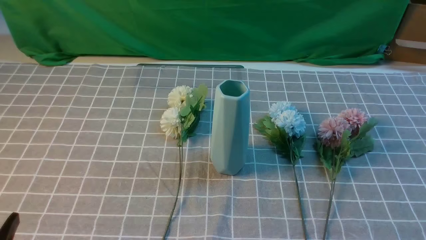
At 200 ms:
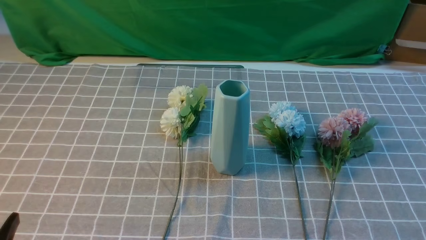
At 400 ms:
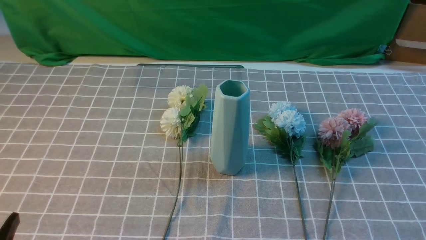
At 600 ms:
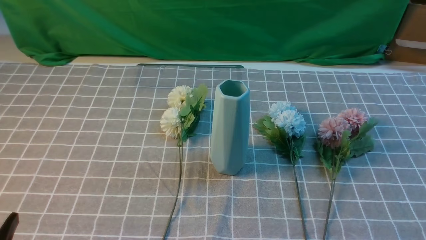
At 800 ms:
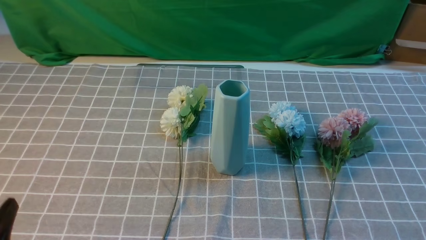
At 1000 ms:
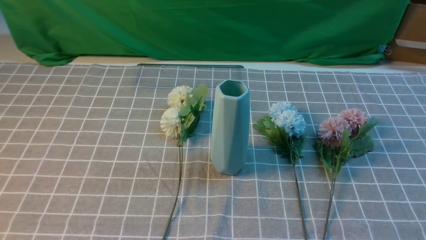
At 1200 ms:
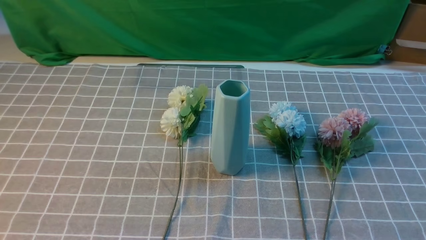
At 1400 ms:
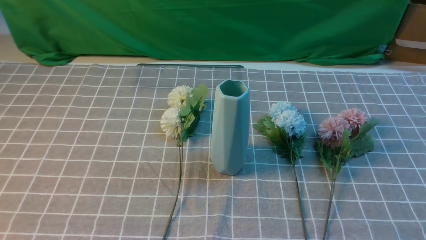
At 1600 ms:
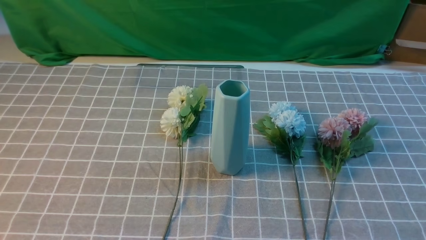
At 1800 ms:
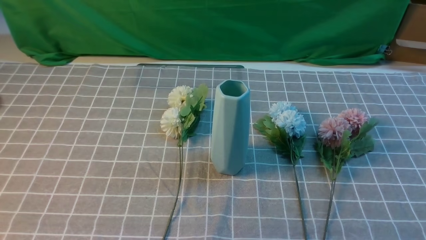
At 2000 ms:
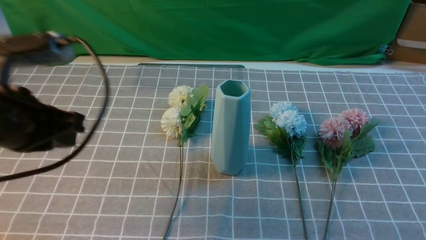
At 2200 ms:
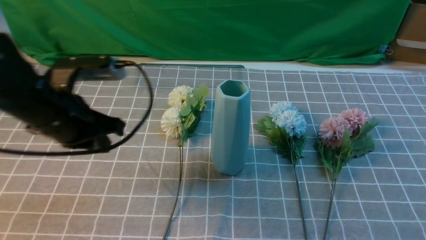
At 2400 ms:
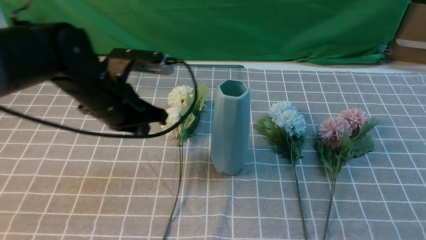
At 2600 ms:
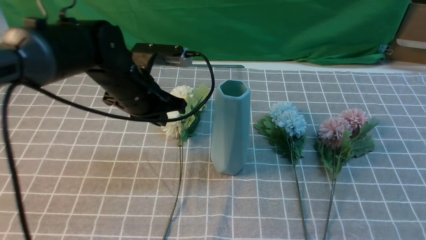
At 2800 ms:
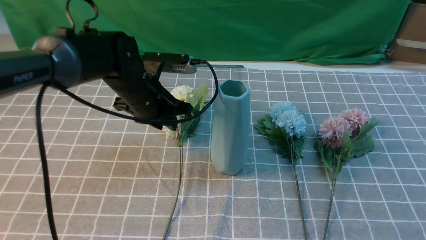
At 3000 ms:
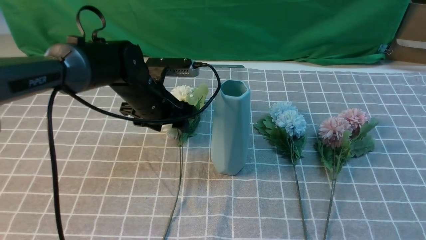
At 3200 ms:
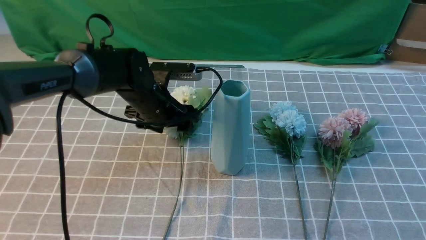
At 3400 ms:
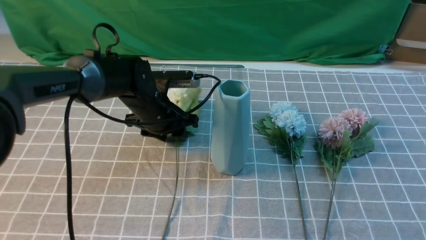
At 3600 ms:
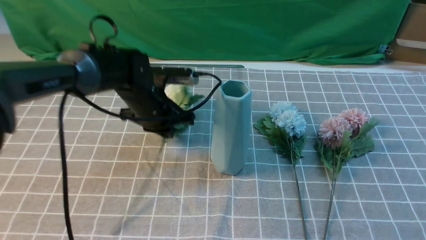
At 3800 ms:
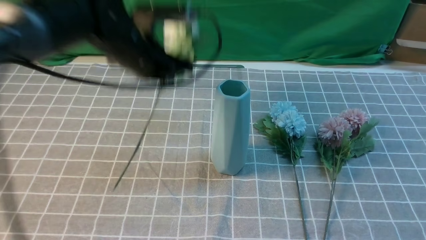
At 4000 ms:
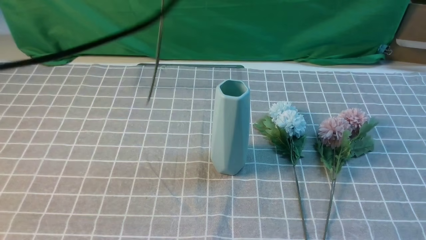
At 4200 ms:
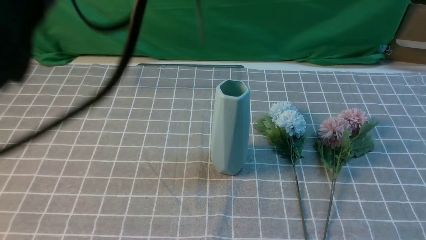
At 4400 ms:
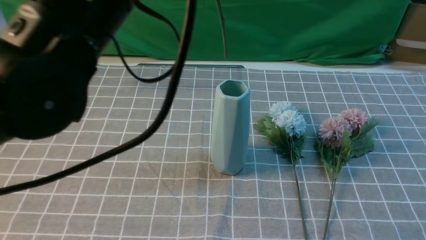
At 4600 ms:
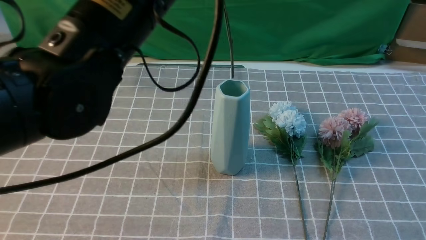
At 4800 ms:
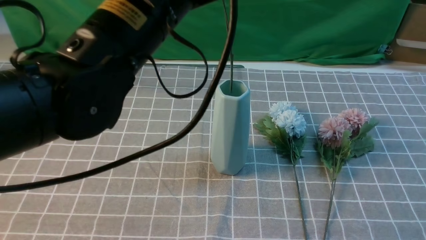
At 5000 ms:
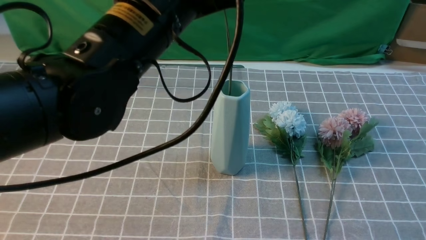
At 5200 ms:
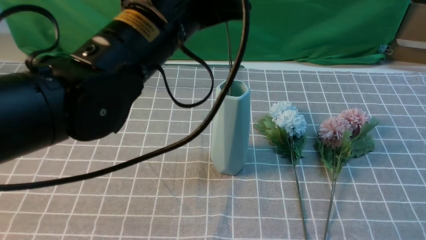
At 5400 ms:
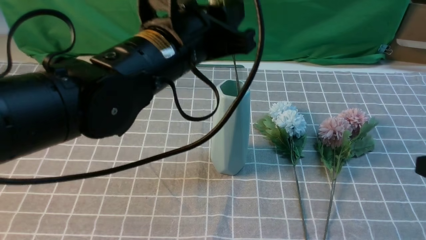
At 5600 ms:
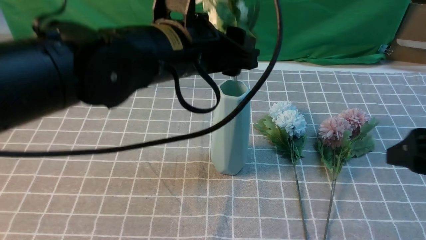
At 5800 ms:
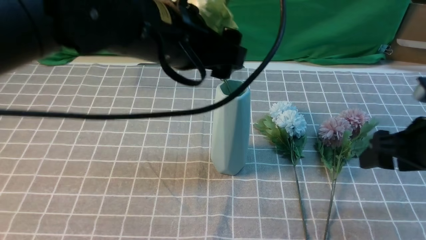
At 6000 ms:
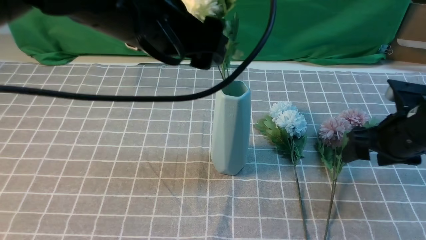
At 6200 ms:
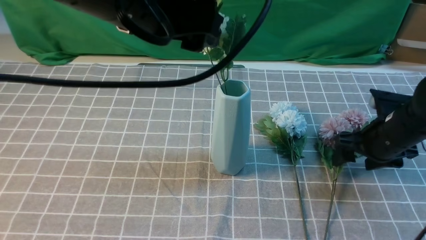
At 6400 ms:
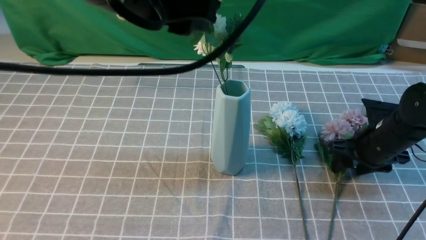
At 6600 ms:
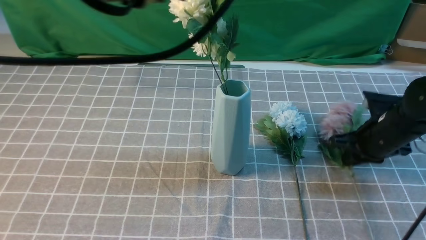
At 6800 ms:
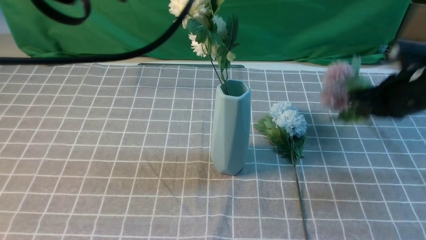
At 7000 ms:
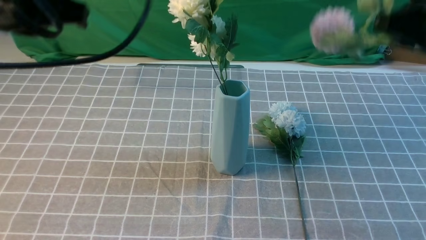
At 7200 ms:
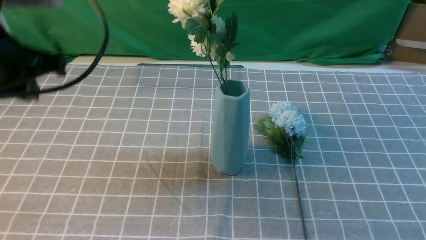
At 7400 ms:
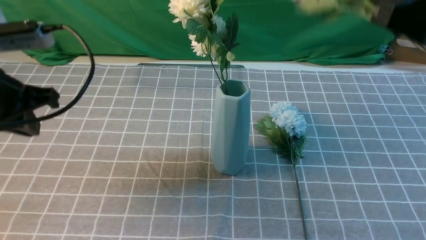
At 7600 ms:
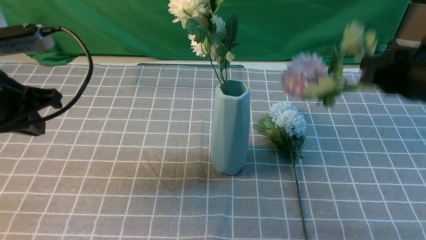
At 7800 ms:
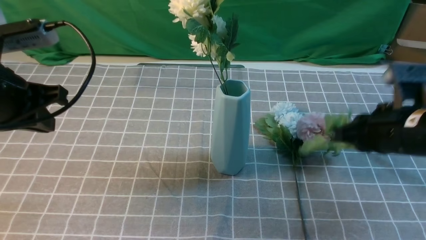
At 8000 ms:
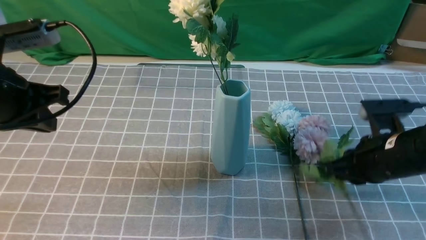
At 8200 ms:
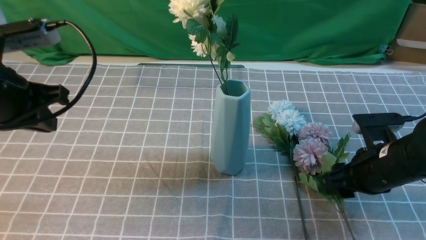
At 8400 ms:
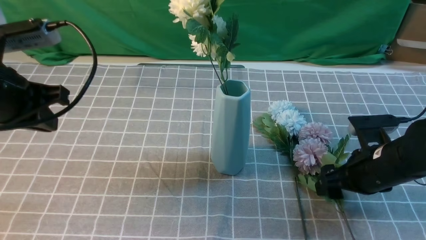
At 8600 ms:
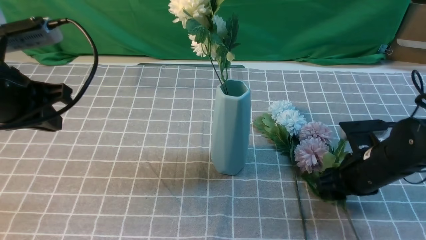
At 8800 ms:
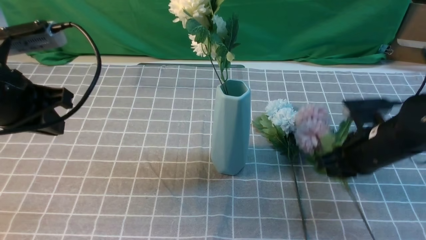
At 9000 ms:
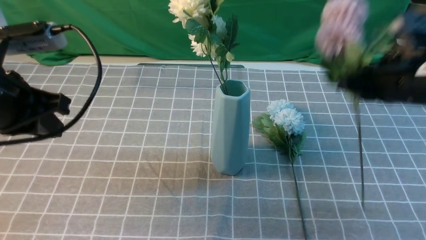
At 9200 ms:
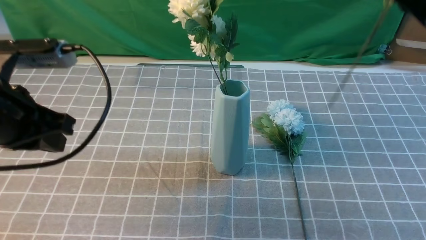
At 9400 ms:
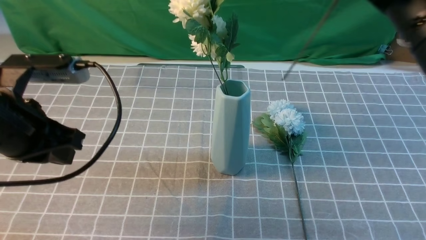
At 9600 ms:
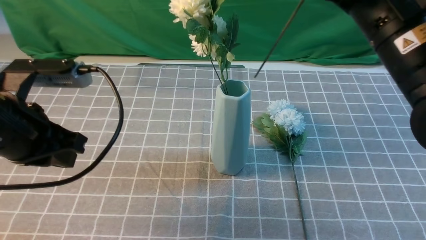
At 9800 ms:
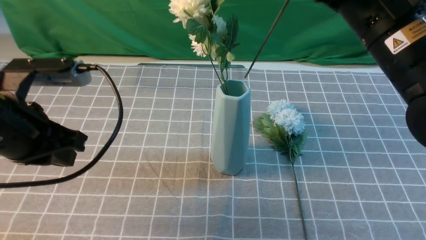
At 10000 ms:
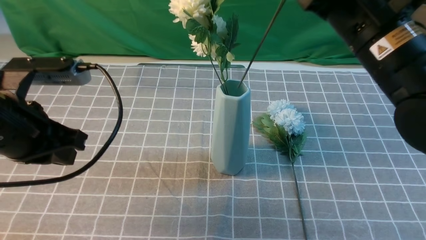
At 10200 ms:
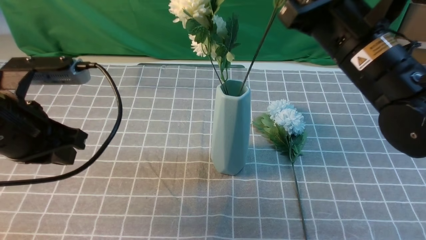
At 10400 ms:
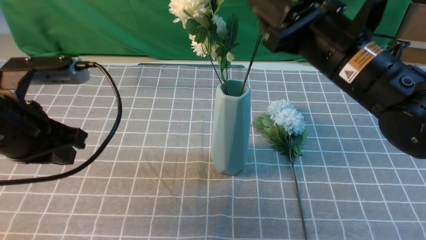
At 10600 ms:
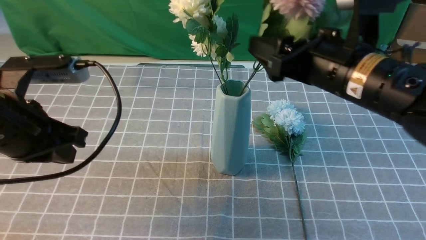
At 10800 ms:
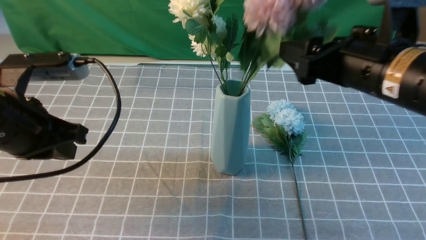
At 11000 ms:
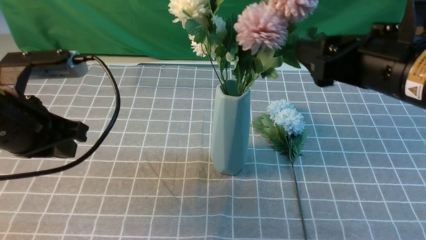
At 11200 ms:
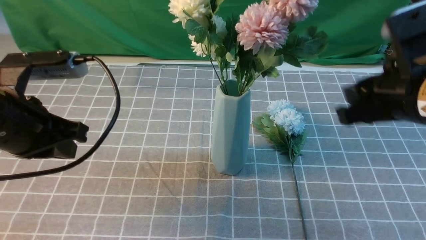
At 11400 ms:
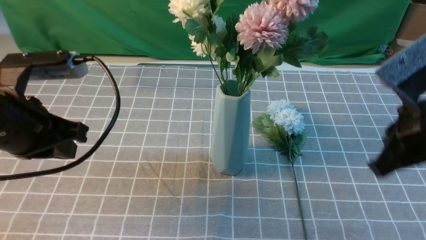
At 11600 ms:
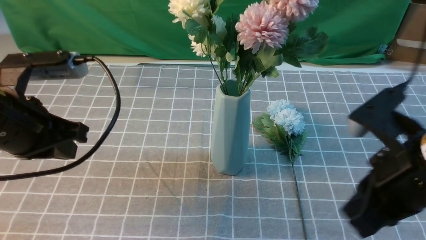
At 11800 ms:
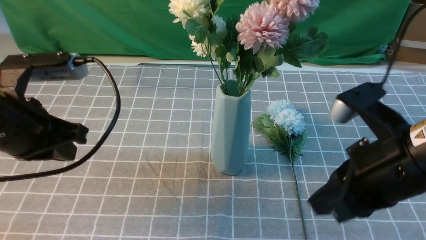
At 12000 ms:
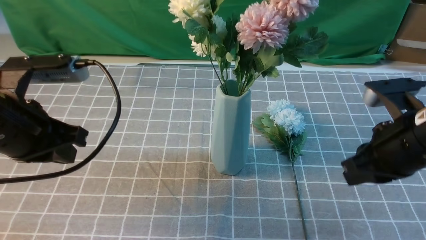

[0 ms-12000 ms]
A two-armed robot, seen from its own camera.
Task of the whole recording: insert the flowers into the vase on the table with the grey tablecloth.
Step, 0 ms to 3400 ms: use the left arm to grab a bunch of fresh flowers.
Step, 3600 ms to 5800 ms: use the left arm to insert the flowers into the vase.
Step, 6000 ms to 8600 ms: use the right arm to grab a bunch of fresh flowers.
Step, 8800 ms to 10600 ms: use the right arm to insert the flowers into the vase.
1600 ms to 3000 ms: The right gripper heads upward and forward, covering some 10 cm, while the left gripper travels forward, downward and to the right by roughly 40 cm, and opens.
3000 ms to 4400 ms: The left gripper is displaced upward and backward by about 30 cm, and closes.
4400 ms to 6000 ms: The right gripper heads forward, covering about 20 cm, and opens its fingers. The left gripper opens its fingers.
6000 ms to 7600 ms: The right gripper moves up and down over some 25 cm, changing direction 2 times, and closes; the left gripper travels to the left and downward by approximately 20 cm, and closes up.
7600 ms to 9000 ms: The right gripper goes downward and returns, some 15 cm each way, and opens, then closes again.
9000 ms to 10400 ms: The right gripper goes about 10 cm to the left, and opens its fingers.
10400 ms to 12000 ms: The right gripper is displaced to the right and downward by roughly 10 cm, goes backward and returns, approximately 10 cm each way, and closes up.

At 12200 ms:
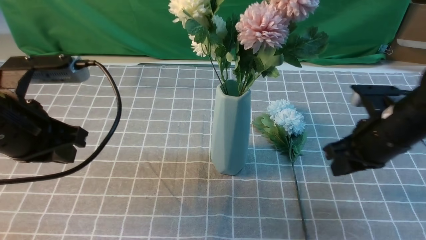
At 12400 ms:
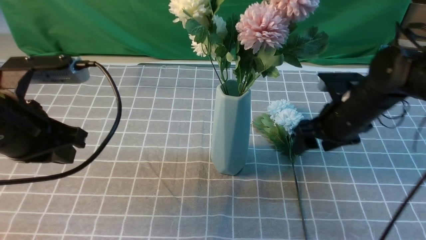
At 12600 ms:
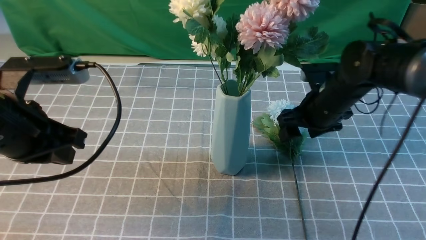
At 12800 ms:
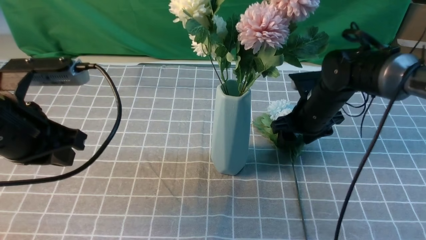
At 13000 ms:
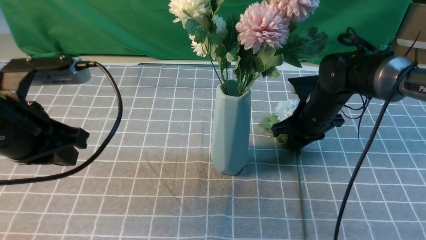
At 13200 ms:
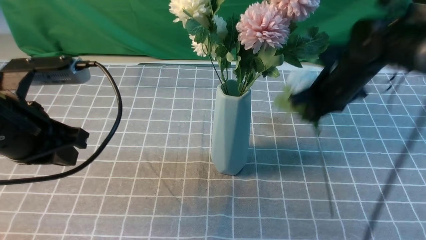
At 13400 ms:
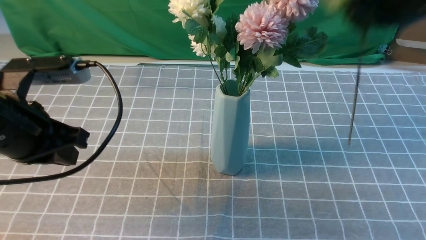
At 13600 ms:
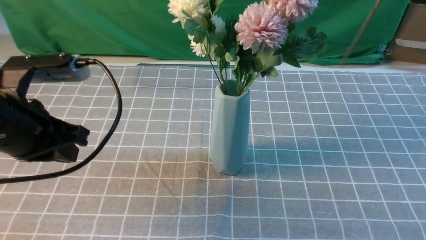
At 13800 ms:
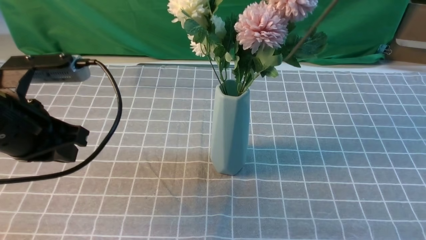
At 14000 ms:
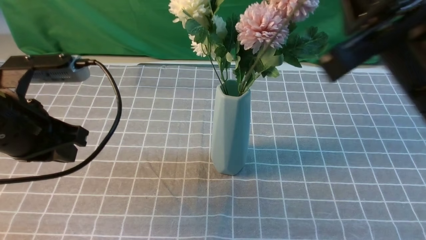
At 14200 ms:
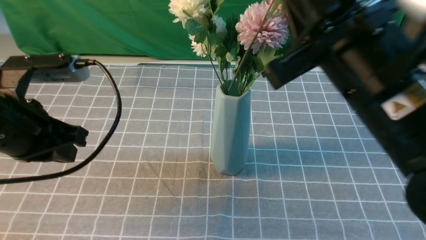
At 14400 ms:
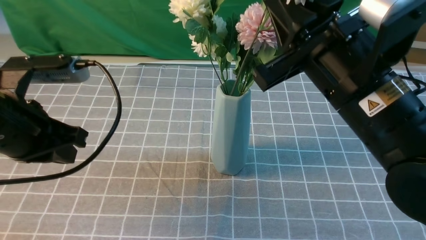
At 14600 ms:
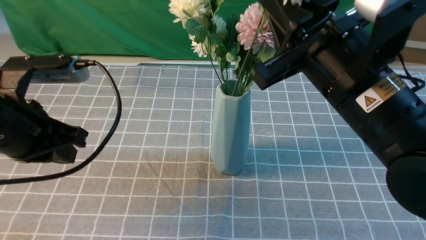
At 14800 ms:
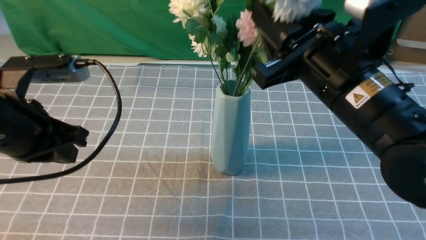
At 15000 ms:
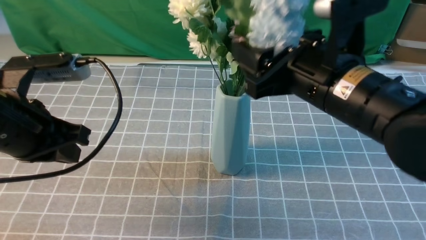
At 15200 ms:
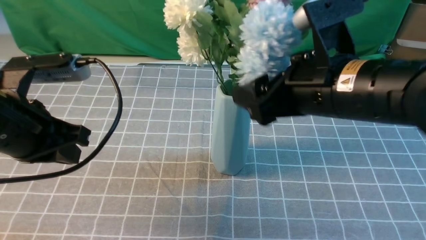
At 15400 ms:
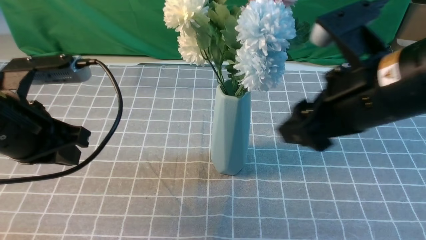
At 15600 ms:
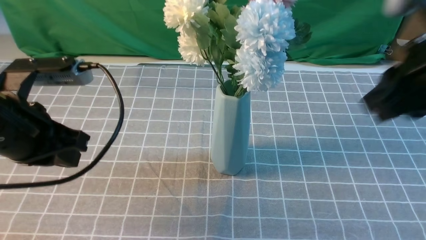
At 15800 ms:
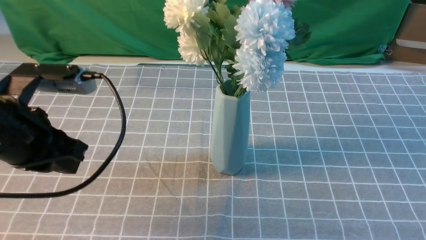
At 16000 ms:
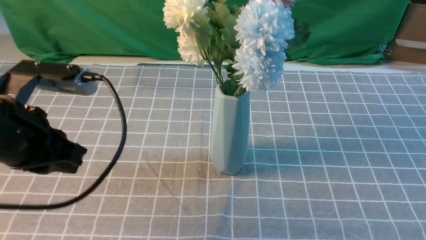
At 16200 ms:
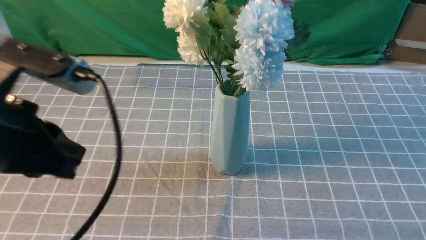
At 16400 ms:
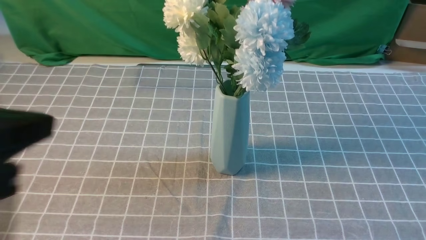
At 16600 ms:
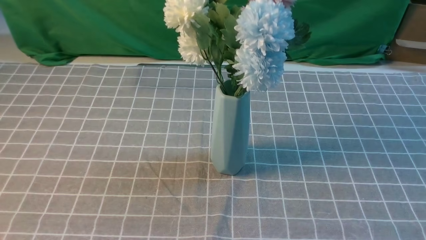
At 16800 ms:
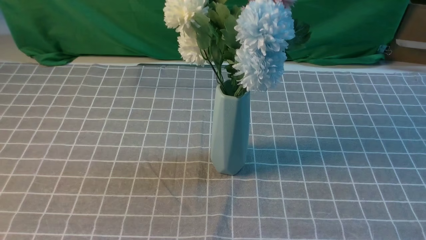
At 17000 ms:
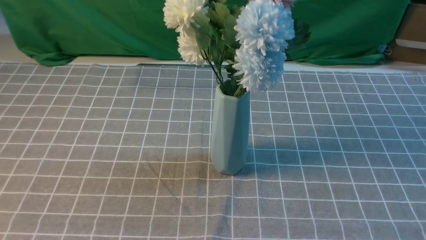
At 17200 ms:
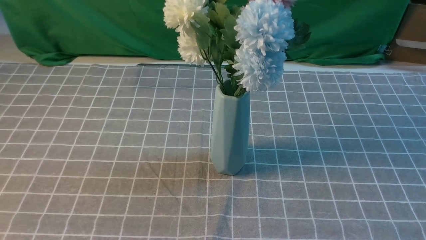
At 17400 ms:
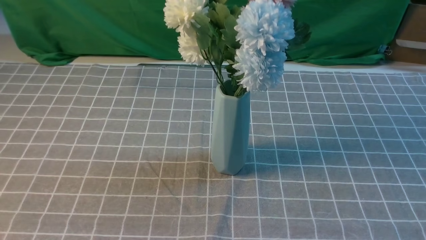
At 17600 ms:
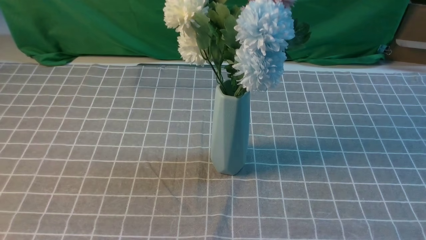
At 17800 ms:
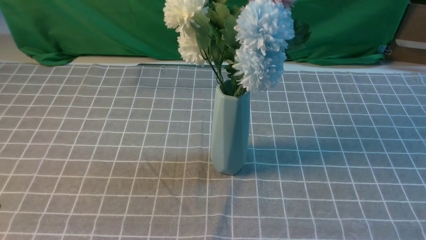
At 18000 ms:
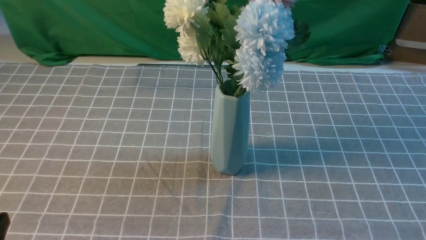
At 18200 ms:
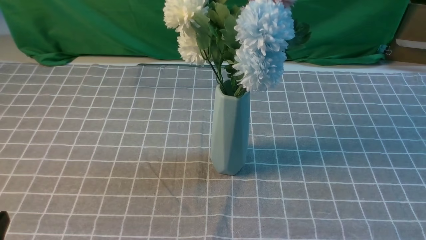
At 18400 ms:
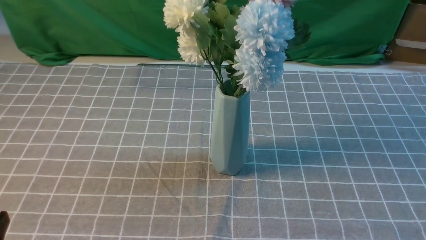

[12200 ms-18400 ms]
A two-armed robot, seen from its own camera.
Task of the whole recording: insert the flowers into the vase on the table with the grey tablecloth.
Step, 13200 ms to 15200 ms: use the right arm to insert the flowers into the vase.
12200 ms to 13800 ms: The right gripper moves upward and backward, approximately 25 cm, and opens and closes again.
13800 ms to 15400 ms: The right gripper is displaced downward by approximately 5 cm, and opens up.
15400 ms to 16800 ms: The left gripper heads backward, covering roughly 20 cm. Meanwhile the right gripper heads backward and to the right, covering some 25 cm, and closes.
